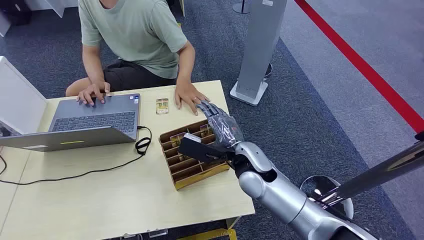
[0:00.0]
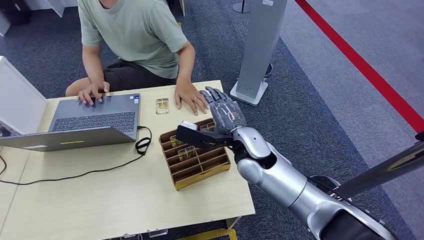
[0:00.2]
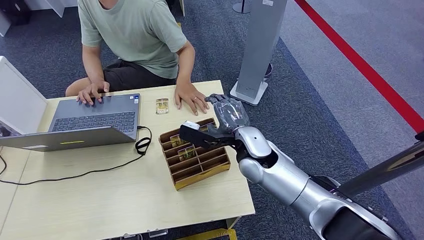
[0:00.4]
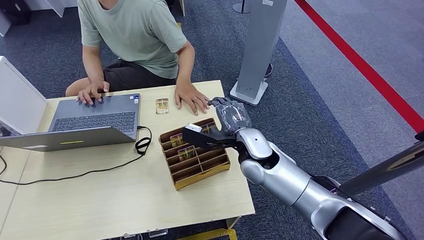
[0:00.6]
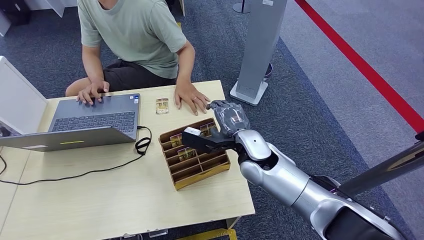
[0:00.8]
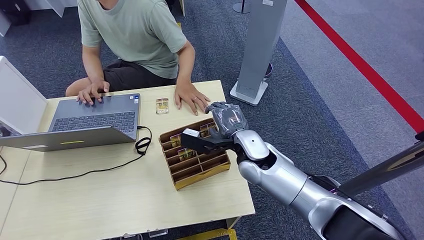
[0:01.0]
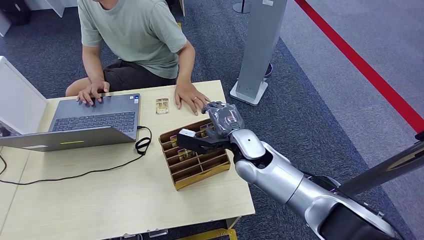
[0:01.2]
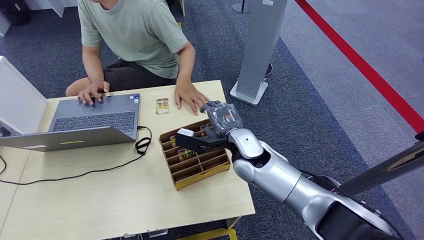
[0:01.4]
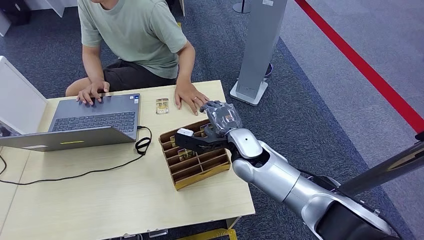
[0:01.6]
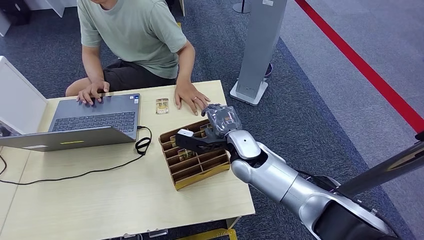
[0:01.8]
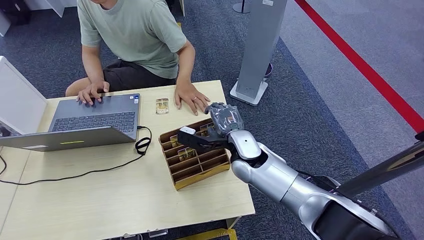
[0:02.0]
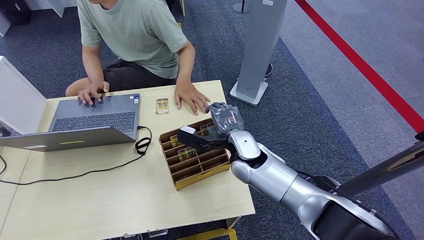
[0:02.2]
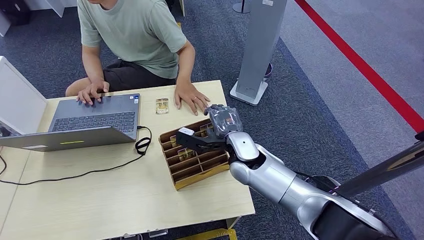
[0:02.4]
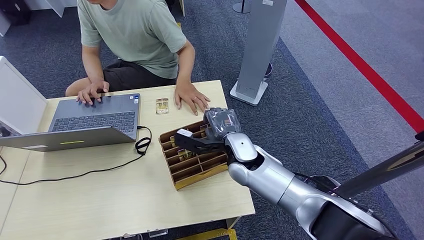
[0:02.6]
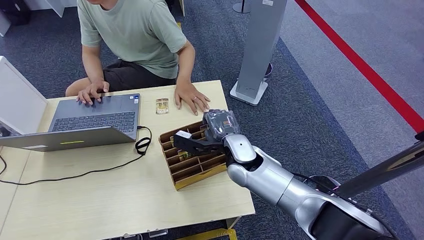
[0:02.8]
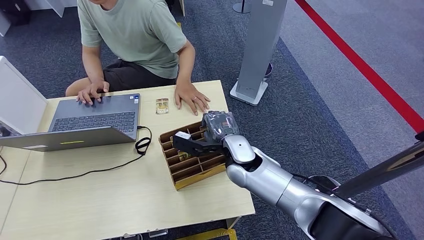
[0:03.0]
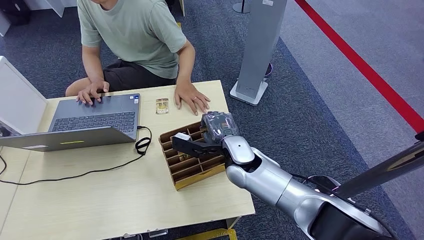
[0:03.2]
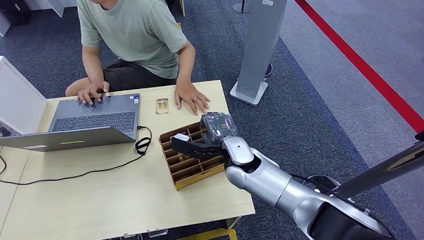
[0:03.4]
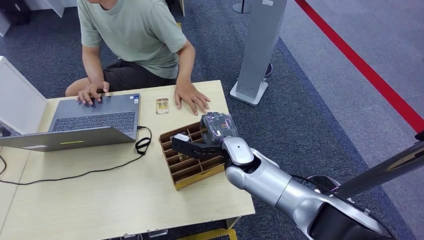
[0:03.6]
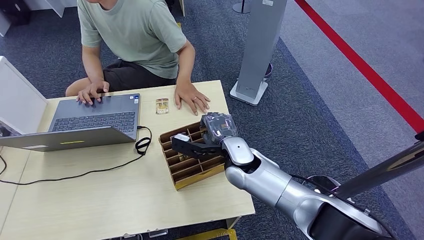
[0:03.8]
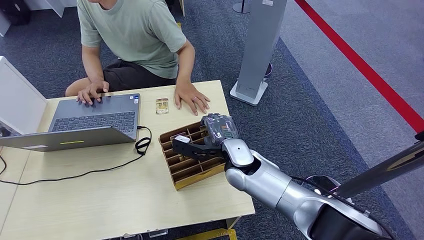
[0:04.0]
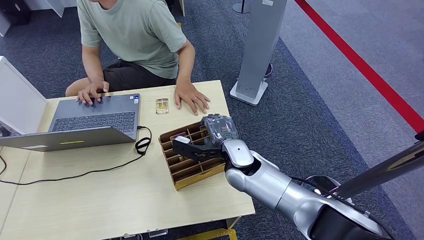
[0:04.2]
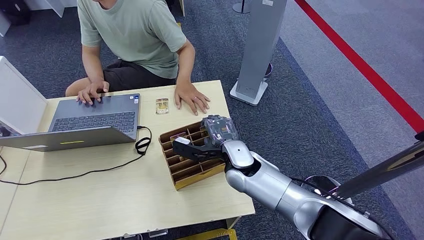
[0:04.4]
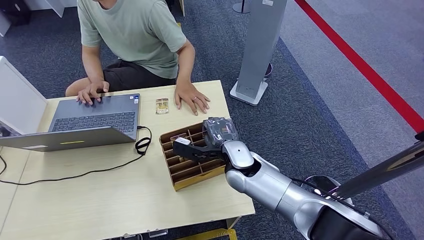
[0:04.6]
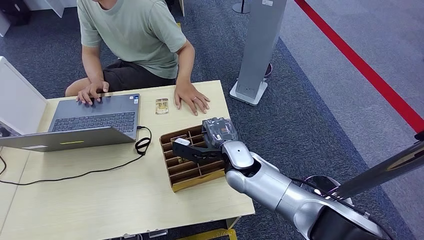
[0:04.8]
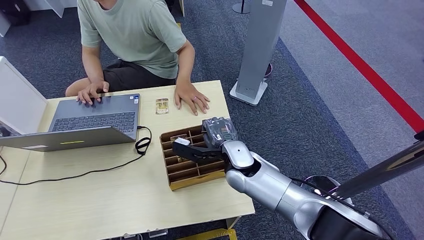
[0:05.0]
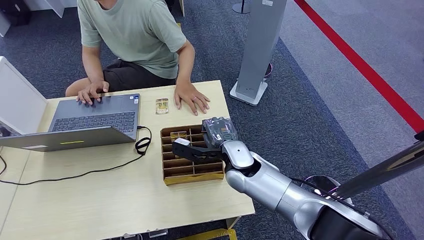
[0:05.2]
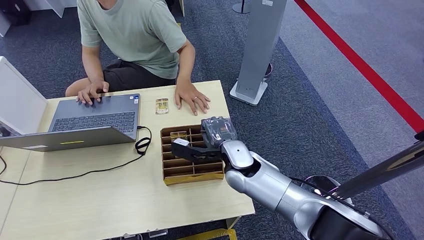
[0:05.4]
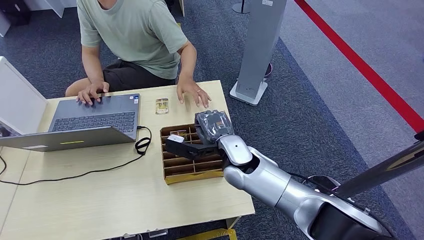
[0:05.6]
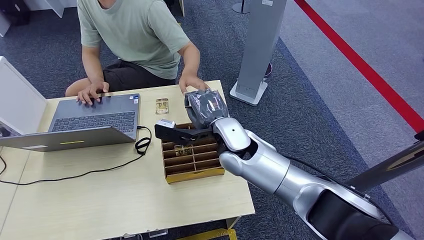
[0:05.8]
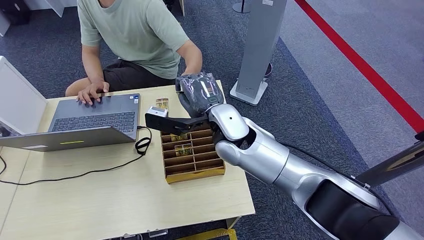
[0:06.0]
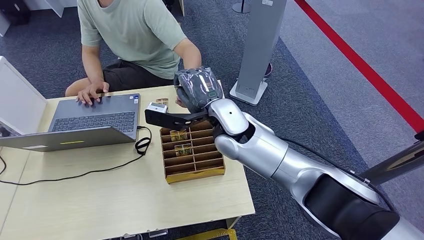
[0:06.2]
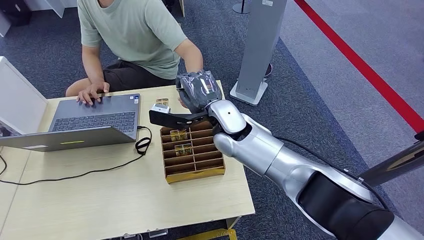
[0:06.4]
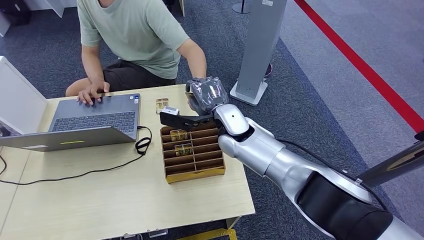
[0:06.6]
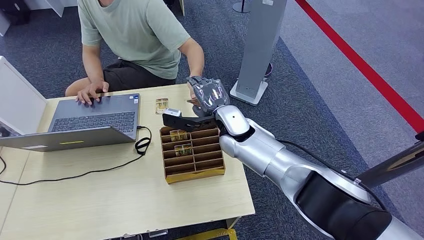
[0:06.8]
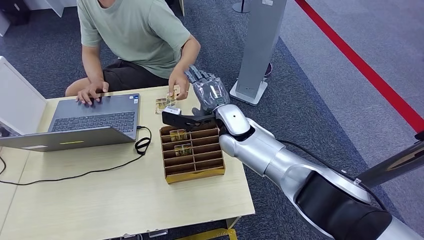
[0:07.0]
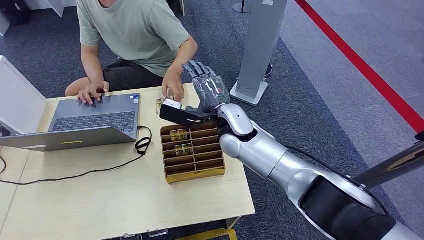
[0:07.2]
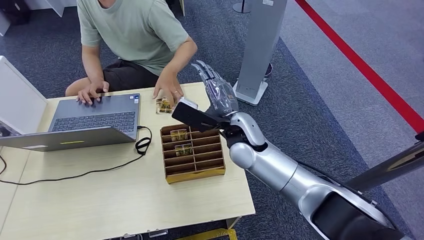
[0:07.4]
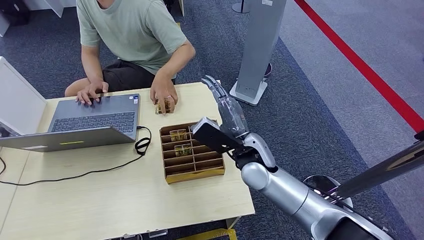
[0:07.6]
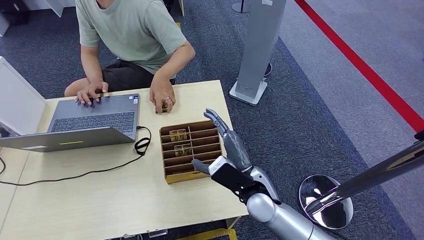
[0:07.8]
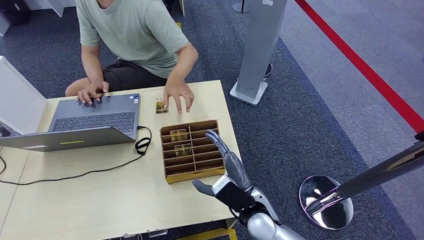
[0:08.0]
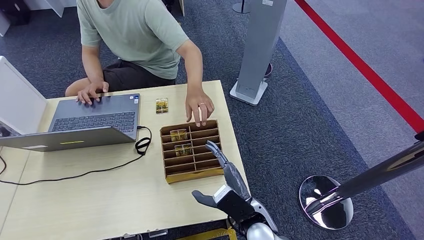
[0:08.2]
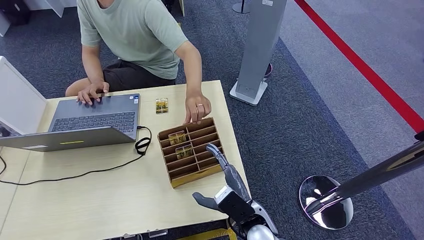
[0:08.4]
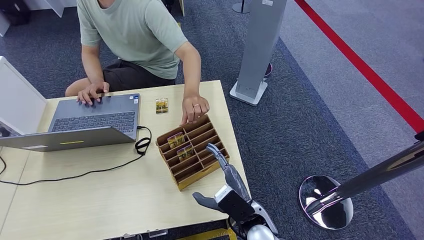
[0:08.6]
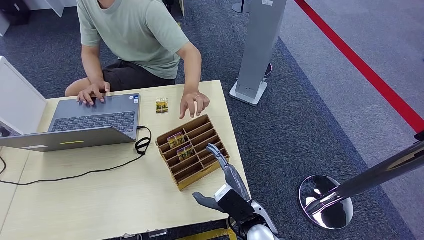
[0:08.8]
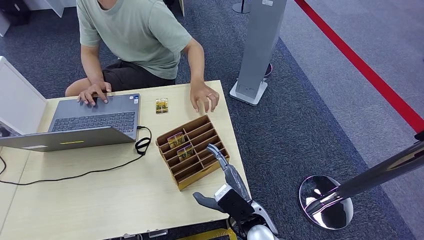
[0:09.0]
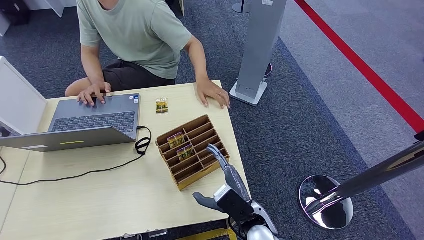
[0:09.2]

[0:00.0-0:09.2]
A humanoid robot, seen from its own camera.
Step, 0:00.0 to 0:05.4: Pick up the room card from the card holder.
Step, 0:05.6 to 0:09.2: Hand the room card to the target.
0:01.6 to 0:04.6: The hands make only small movements.
0:04.6 to 0:06.2: The right hand goes about 15 cm upward.
0:06.2 to 0:07.6: The right hand shifts some 10 cm downward, to the right and backward.
0:07.6 to 0:09.2: The right hand travels downward and backward by about 20 cm.

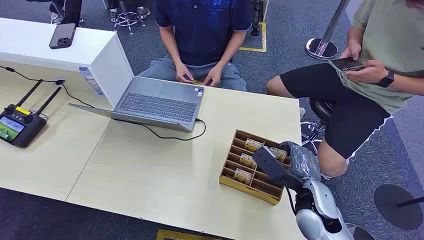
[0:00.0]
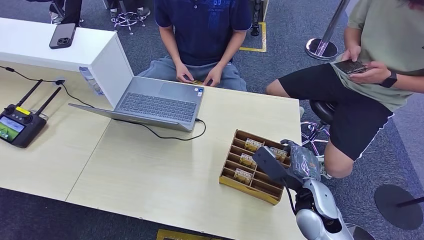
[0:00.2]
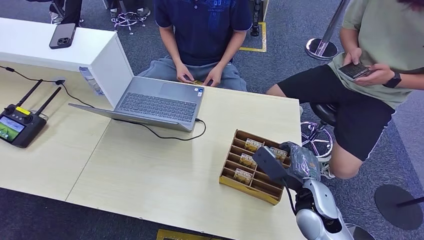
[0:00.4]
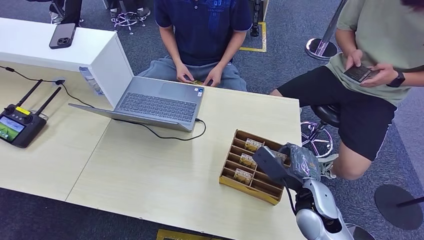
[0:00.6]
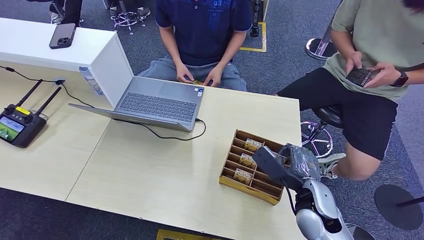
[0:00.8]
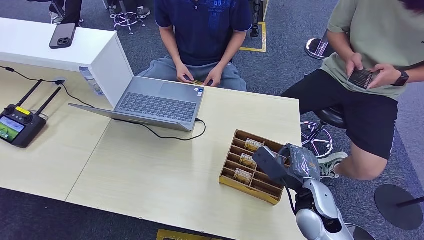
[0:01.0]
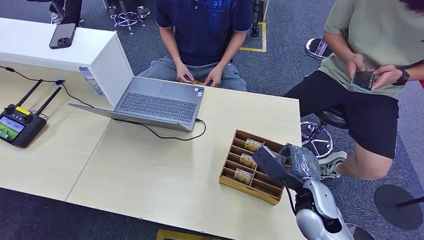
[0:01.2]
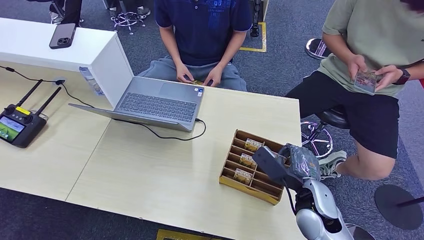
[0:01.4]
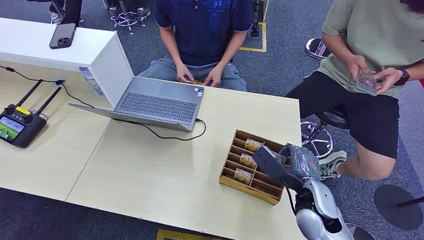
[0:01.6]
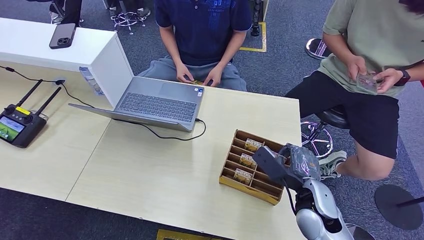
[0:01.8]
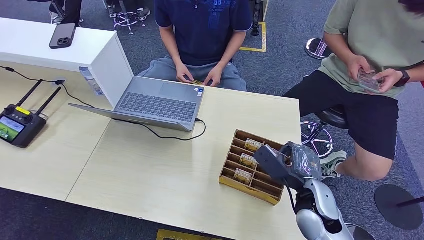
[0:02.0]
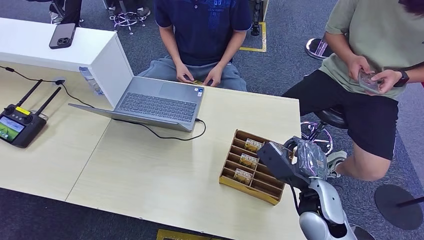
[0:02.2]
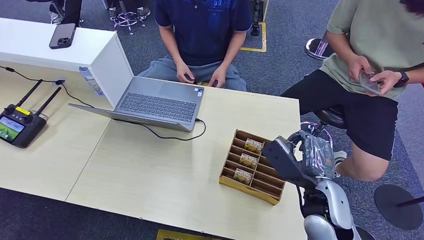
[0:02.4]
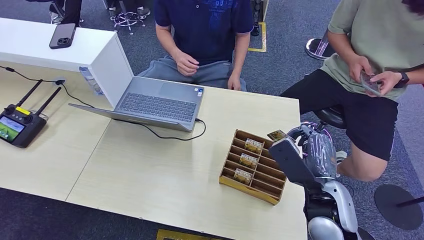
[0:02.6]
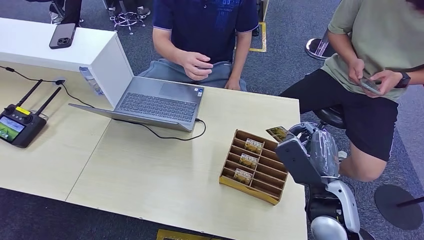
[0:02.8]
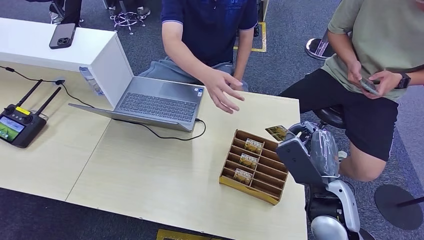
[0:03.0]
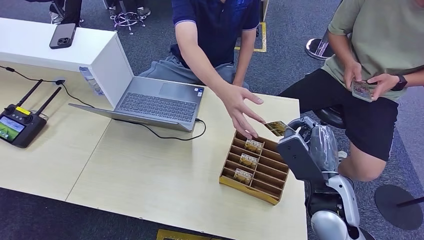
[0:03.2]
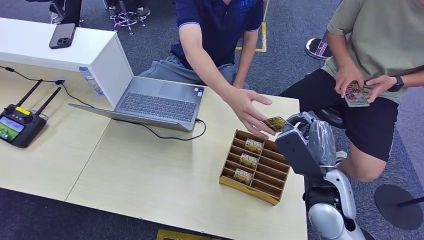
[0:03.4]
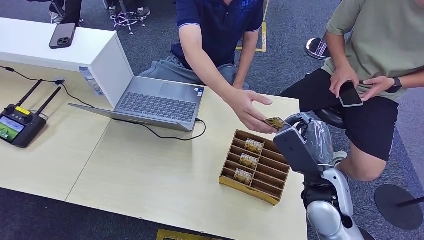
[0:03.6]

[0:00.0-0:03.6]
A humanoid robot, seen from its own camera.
Step, 0:00.0 to 0:02.8: Pick up the room card from the card holder.
Step, 0:03.2 to 0:03.6: Hand the room card to the target.
0:01.8 to 0:03.6: The right hand travels upward by roughly 5 cm.

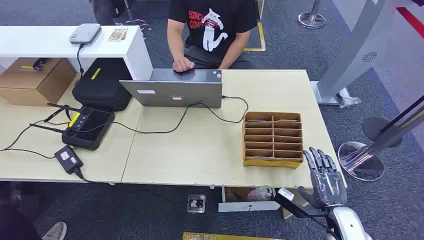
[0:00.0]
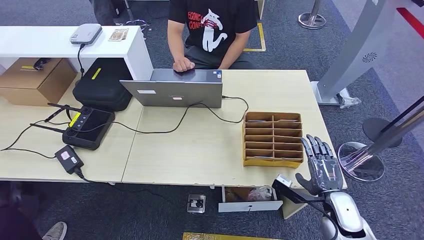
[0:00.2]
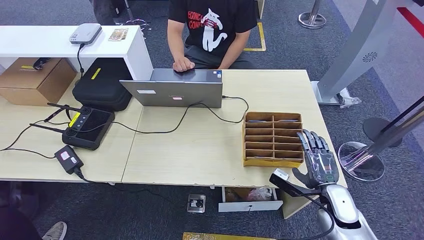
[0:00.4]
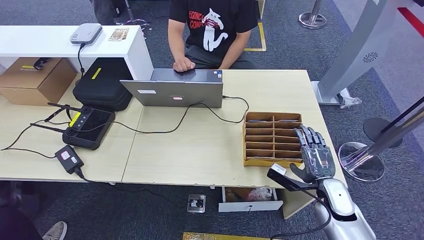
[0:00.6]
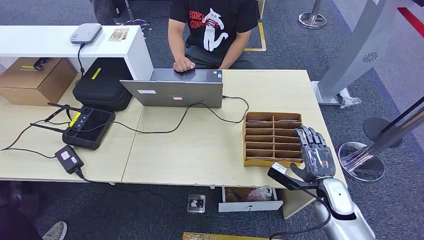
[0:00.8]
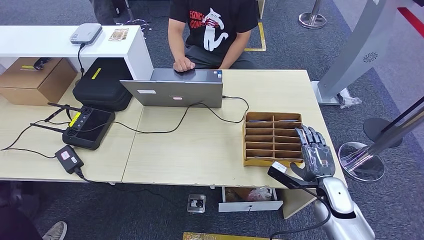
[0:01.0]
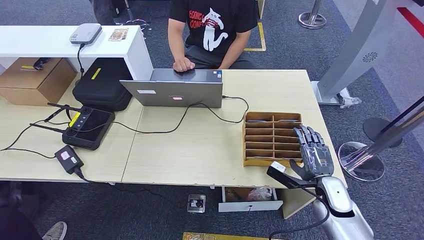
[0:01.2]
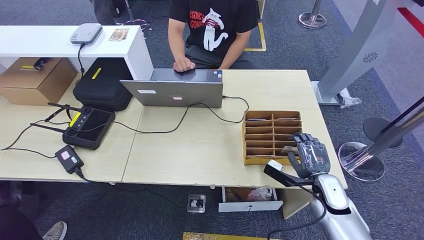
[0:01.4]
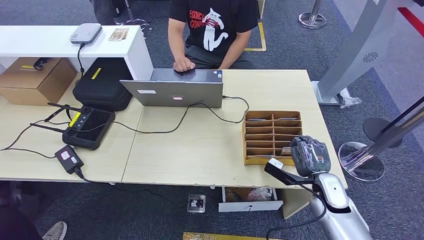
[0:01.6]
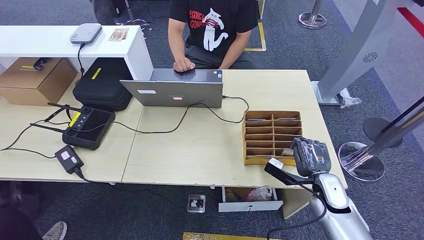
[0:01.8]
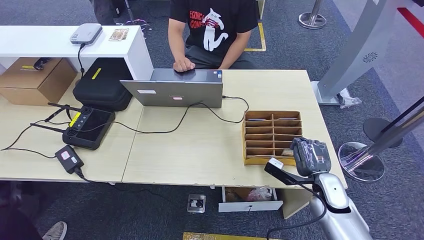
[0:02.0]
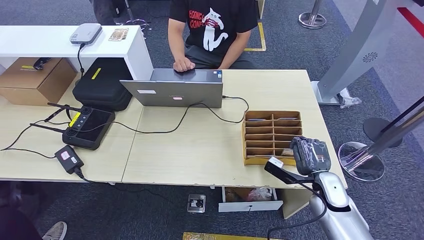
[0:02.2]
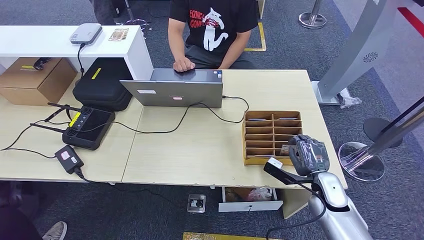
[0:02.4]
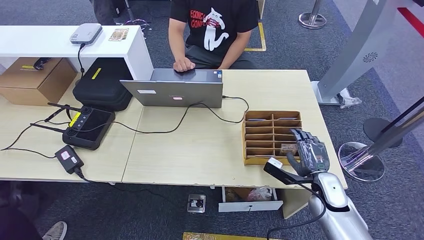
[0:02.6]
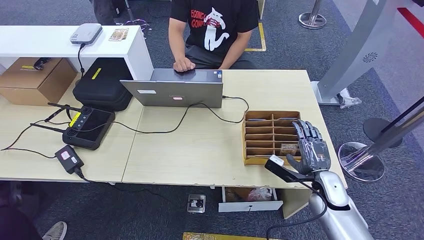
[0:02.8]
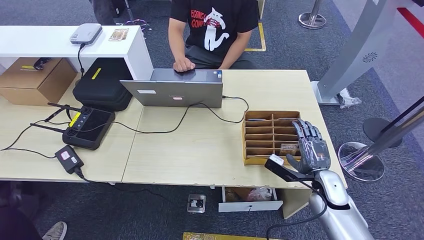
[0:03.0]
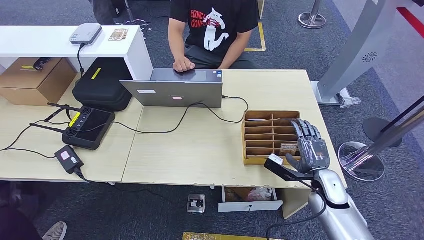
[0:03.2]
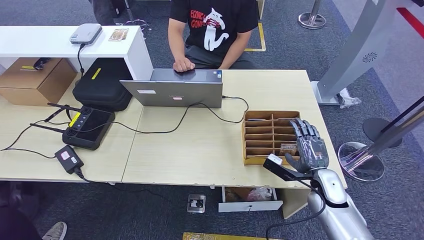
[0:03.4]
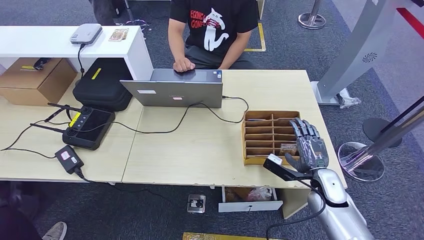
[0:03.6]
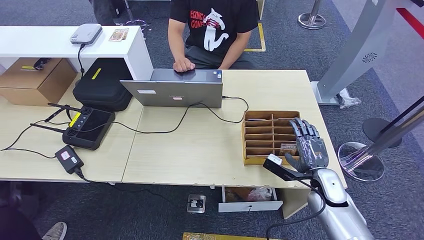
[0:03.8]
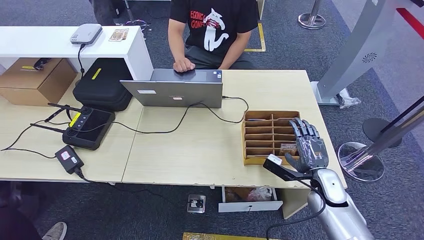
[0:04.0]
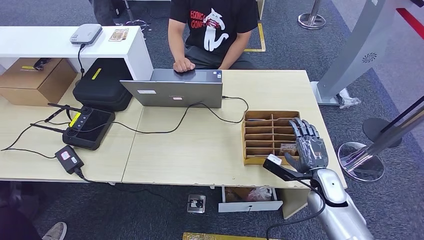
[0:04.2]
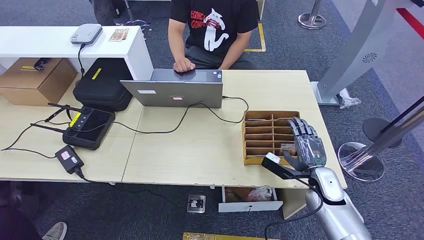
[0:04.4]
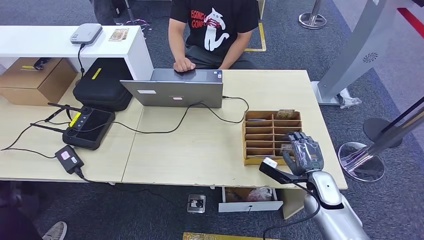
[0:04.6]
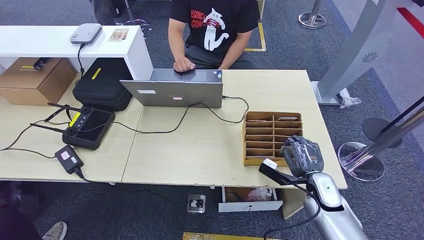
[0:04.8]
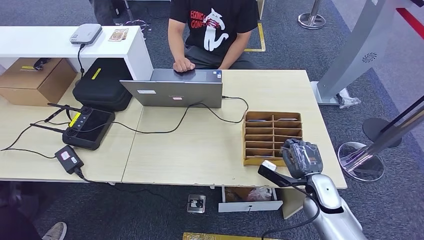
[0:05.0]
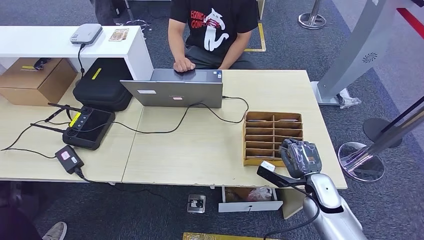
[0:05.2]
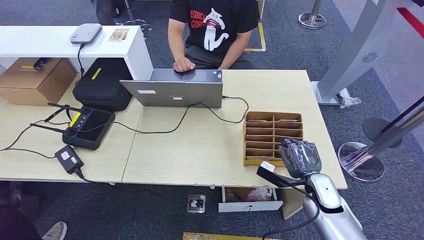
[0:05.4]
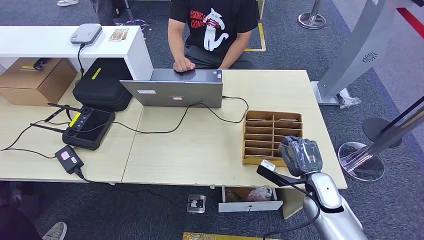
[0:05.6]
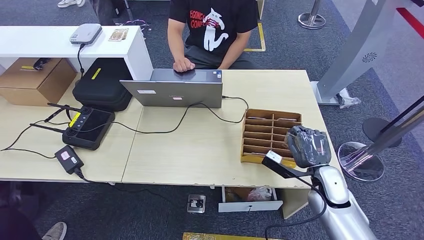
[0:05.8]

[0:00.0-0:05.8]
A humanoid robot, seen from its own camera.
0:01.4 to 0:02.8: Neither hand changes place.
0:02.8 to 0:04.4: The two hands keep their place.
0:04.4 to 0:05.8: The hands move only a little.
